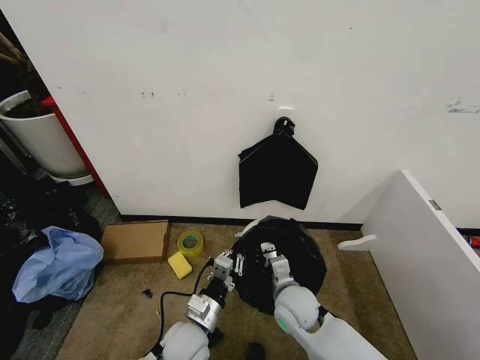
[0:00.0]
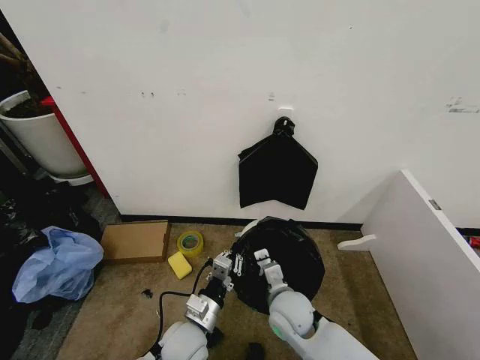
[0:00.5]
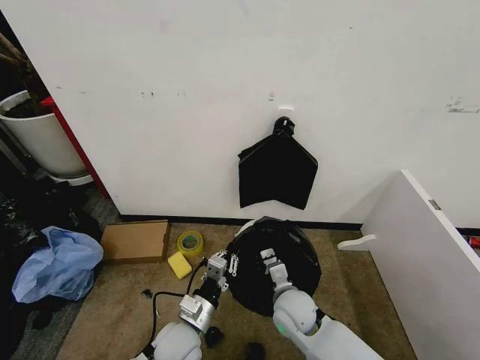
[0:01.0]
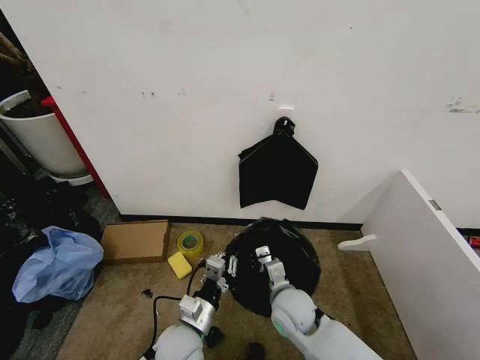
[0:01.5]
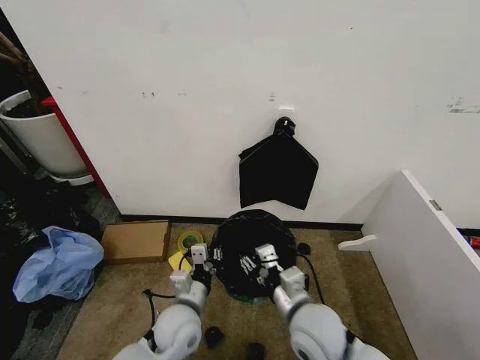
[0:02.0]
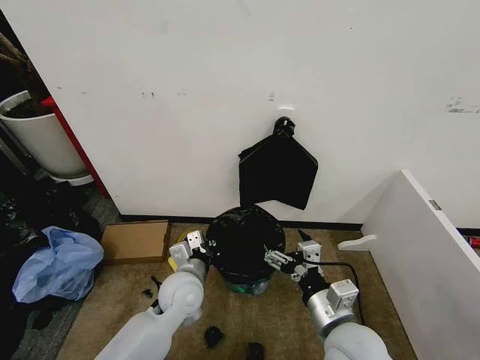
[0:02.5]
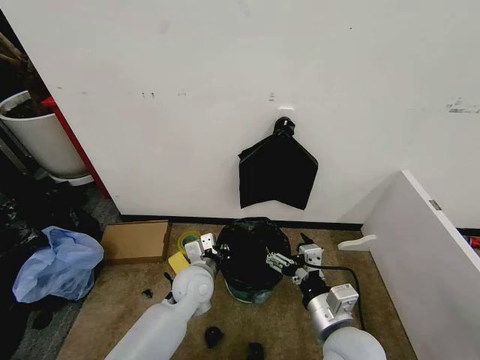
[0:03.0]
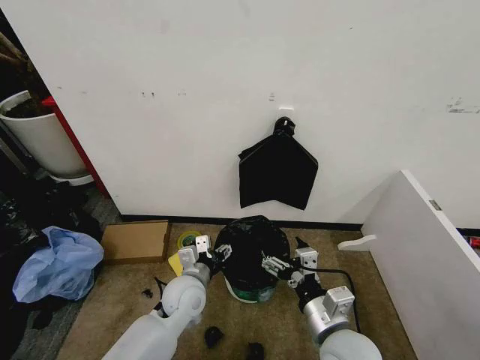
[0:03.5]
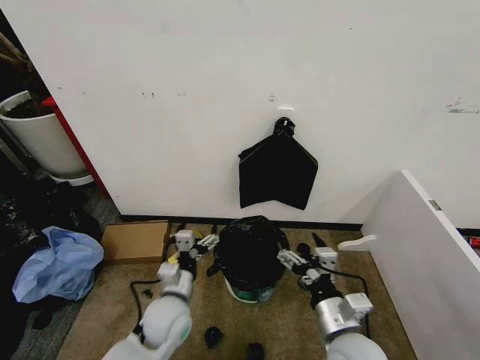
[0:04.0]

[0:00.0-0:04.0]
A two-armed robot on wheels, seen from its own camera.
Task of the whole recording: Place the garbage bag over the trash bin.
0:00.0 to 0:02.0: The right gripper travels upward and backward by about 10 cm, and opens up.
0:02.0 to 0:04.0: The left gripper moves about 10 cm forward and comes back, and opens up; the right gripper shifts roughly 10 cm to the right and backward, and opens.

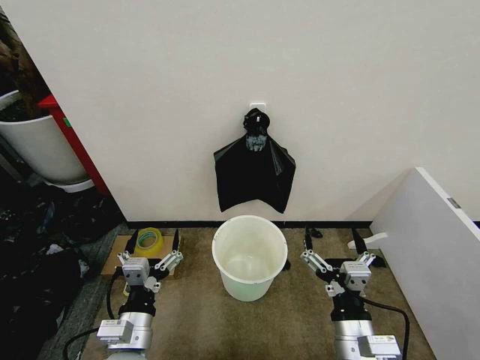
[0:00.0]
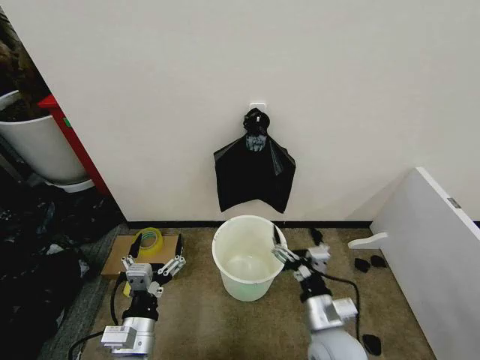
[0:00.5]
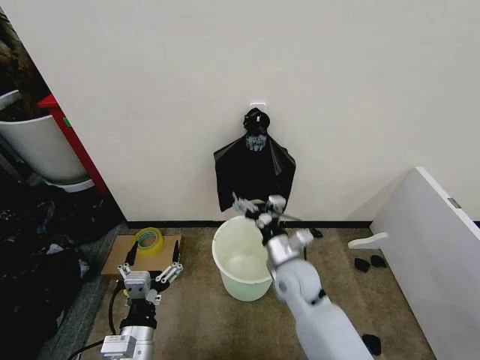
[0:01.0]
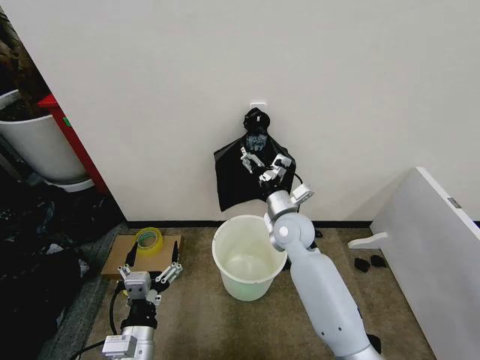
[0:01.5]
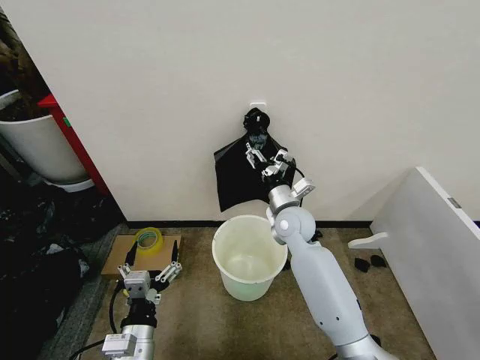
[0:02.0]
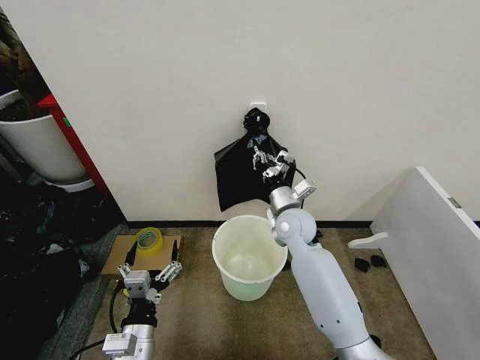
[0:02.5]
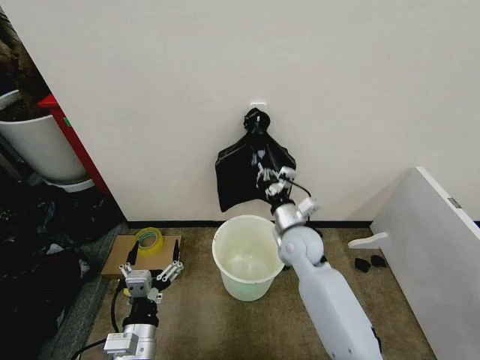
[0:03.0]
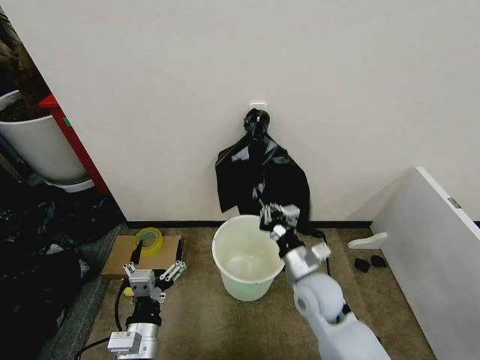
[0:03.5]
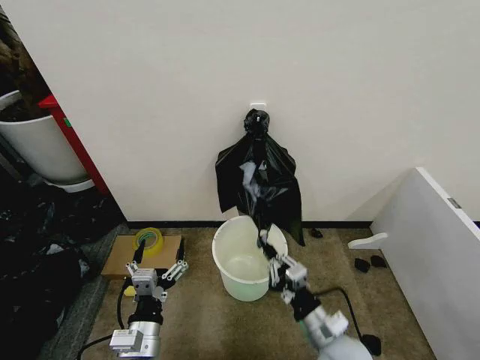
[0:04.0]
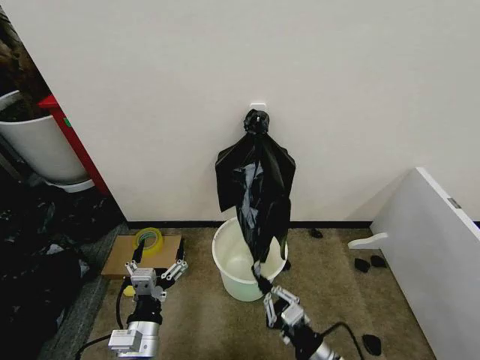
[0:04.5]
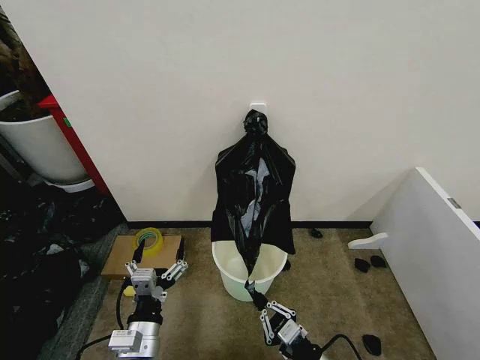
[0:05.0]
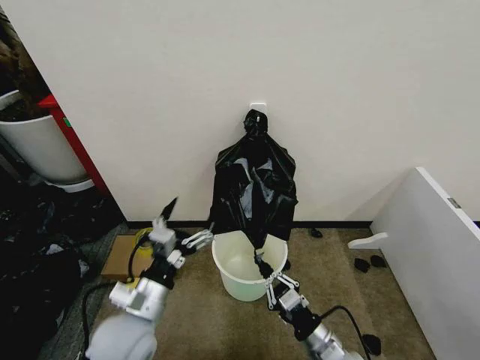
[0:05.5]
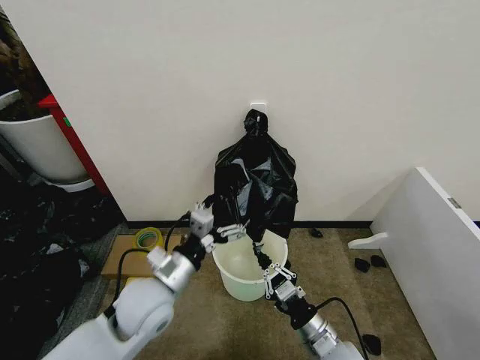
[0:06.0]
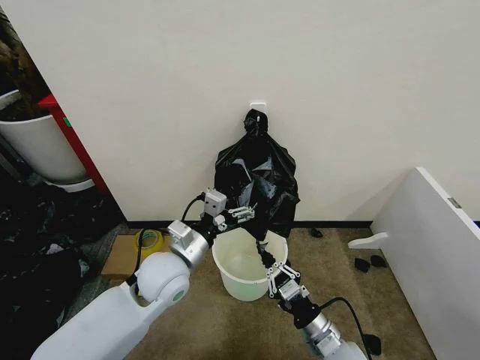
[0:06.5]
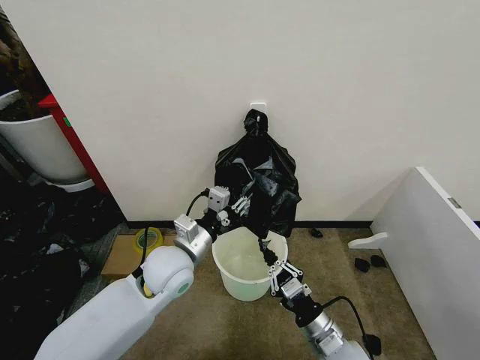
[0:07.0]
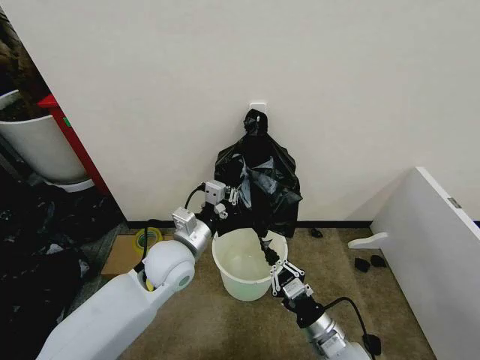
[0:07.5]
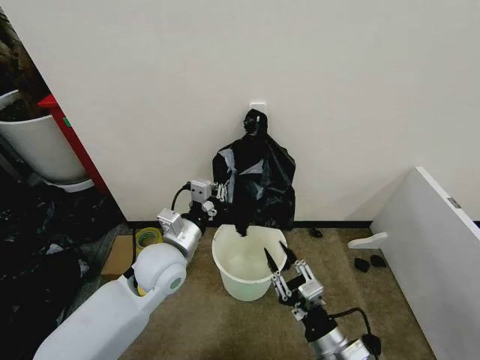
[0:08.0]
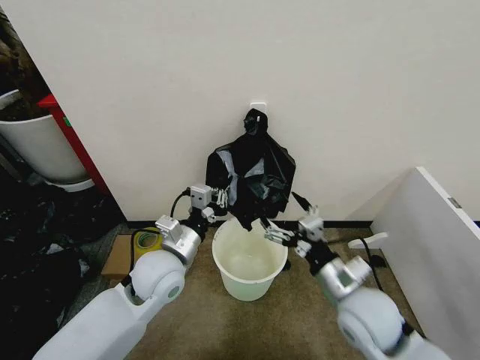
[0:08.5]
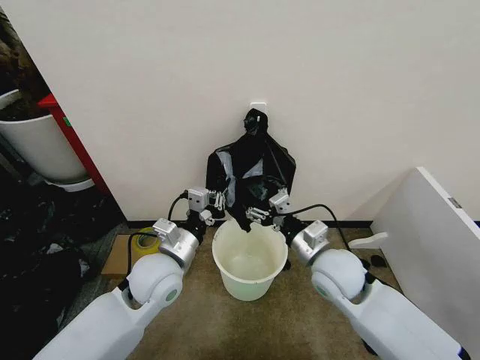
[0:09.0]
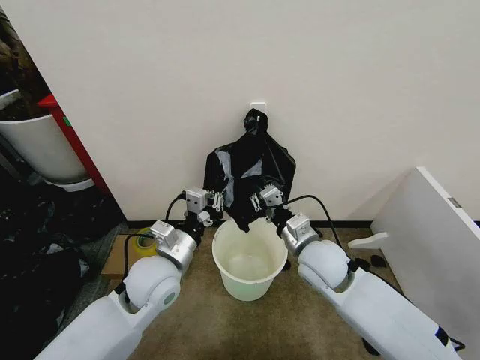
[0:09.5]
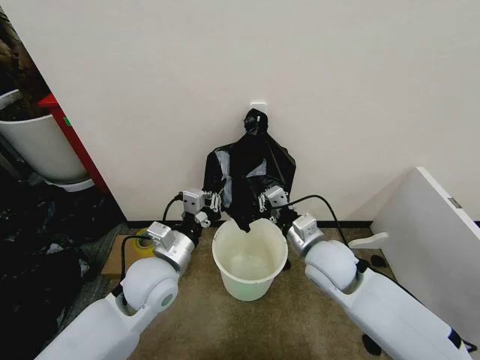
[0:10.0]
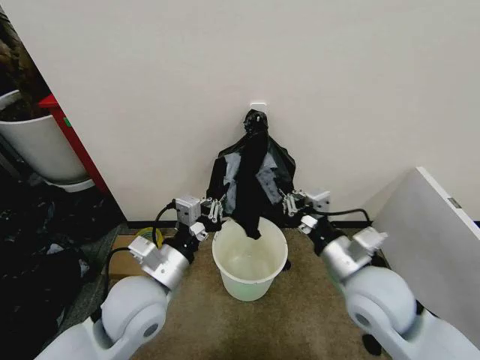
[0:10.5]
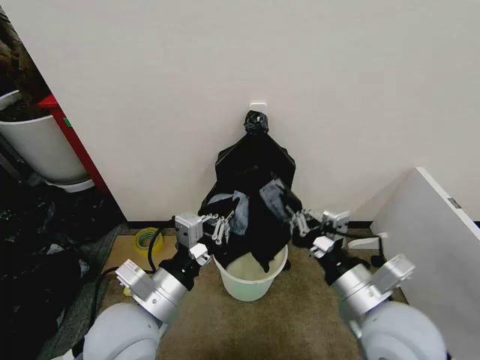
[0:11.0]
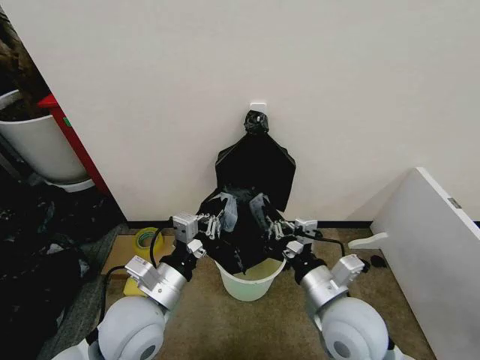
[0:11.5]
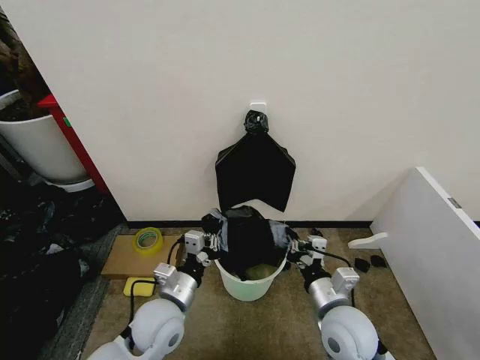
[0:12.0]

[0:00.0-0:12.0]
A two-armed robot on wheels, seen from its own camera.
Task of the whole recording: Place the garbage bag over the trash bin.
0:02.0 to 0:04.0: The right gripper heads backward, covering approximately 25 cm, and closes.
0:04.0 to 0:06.0: The left gripper shifts roughly 15 cm forward and upward.
0:06.0 to 0:08.0: The left gripper heads forward, covering roughly 5 cm, and closes up. Meanwhile the right gripper travels upward by roughly 5 cm, and opens its fingers.
0:08.0 to 0:10.0: The right gripper heads forward and upward, covering about 20 cm, and closes up.
0:10.0 to 0:12.0: The left gripper moves downward, roughly 10 cm, while the right gripper moves backward and downward, approximately 15 cm.

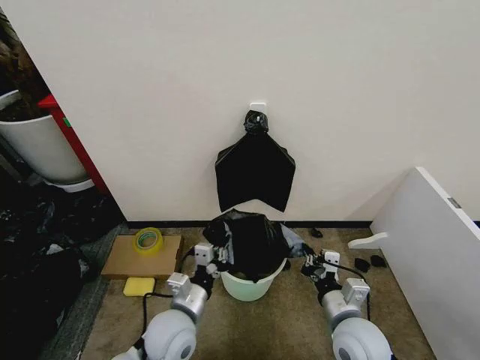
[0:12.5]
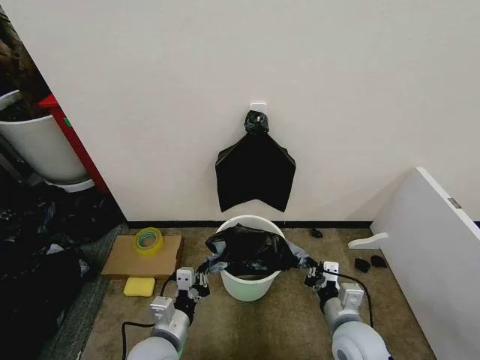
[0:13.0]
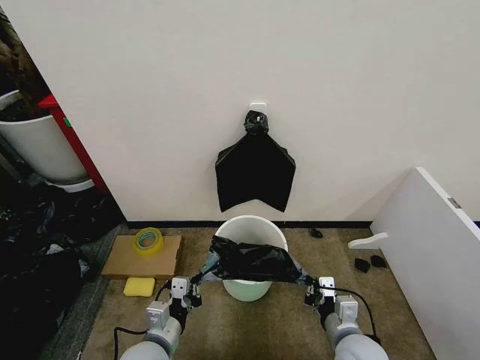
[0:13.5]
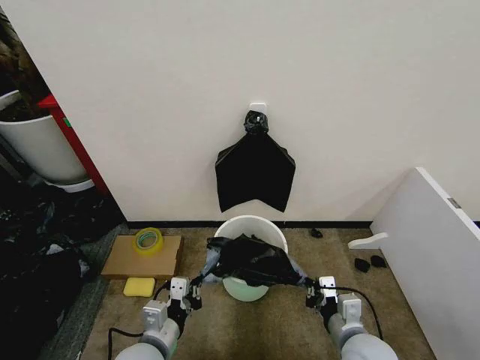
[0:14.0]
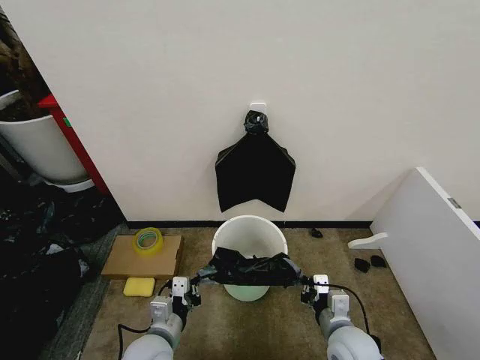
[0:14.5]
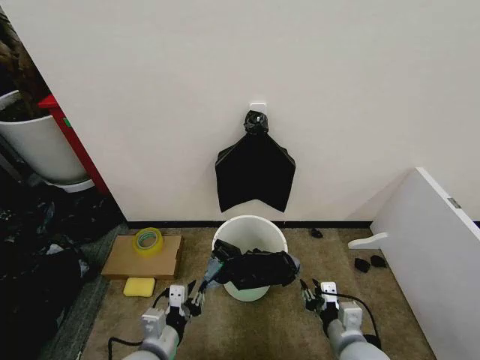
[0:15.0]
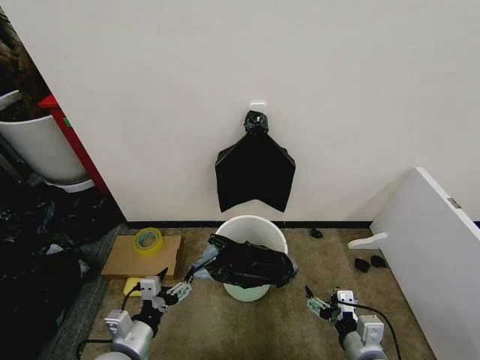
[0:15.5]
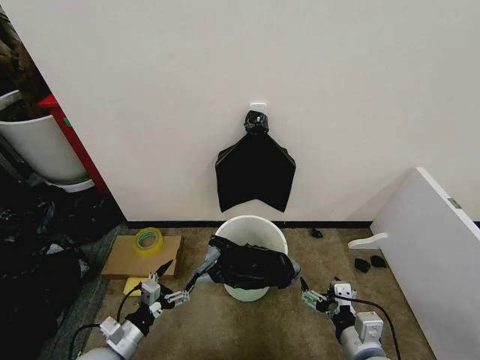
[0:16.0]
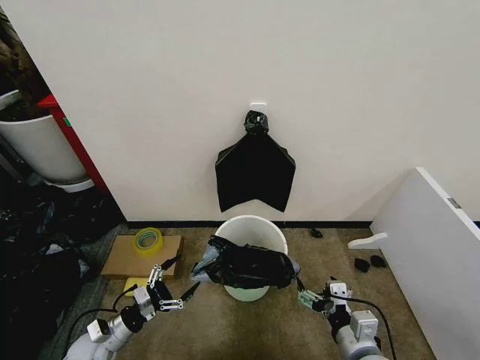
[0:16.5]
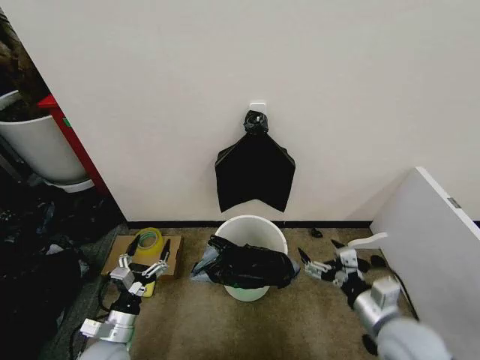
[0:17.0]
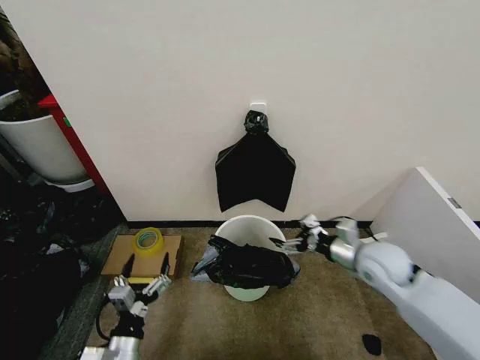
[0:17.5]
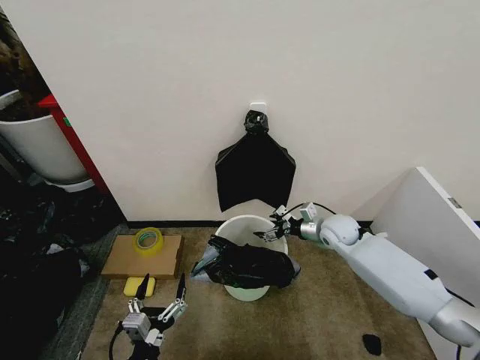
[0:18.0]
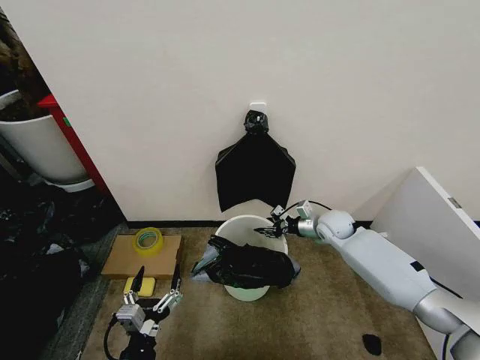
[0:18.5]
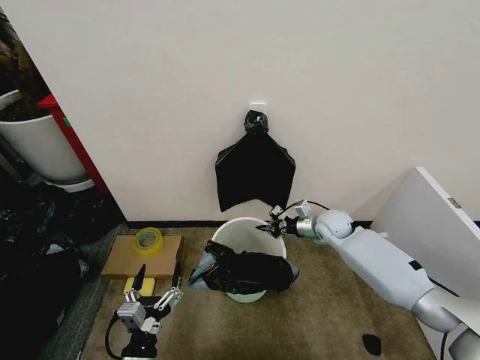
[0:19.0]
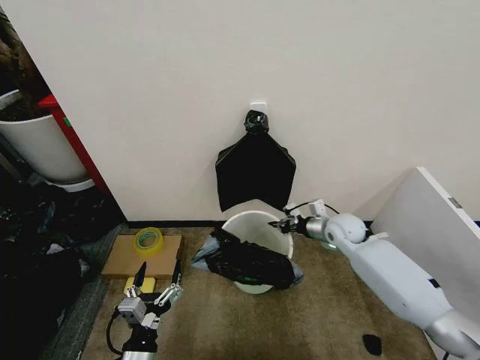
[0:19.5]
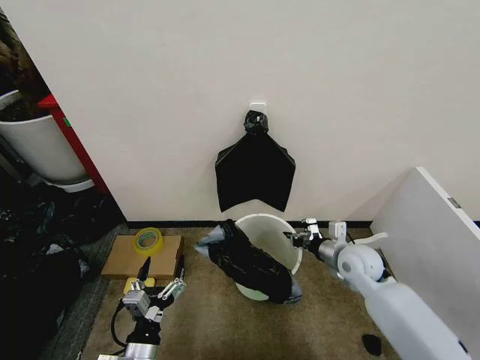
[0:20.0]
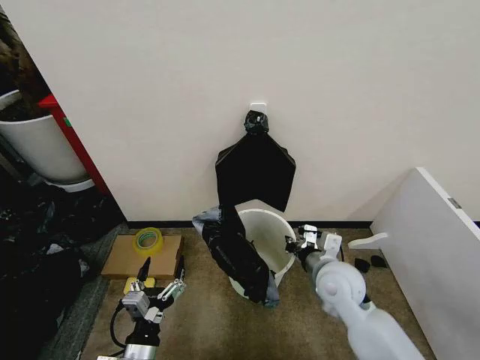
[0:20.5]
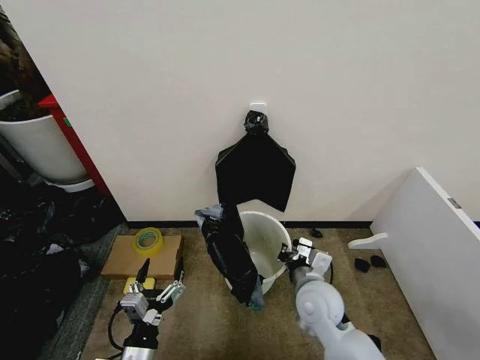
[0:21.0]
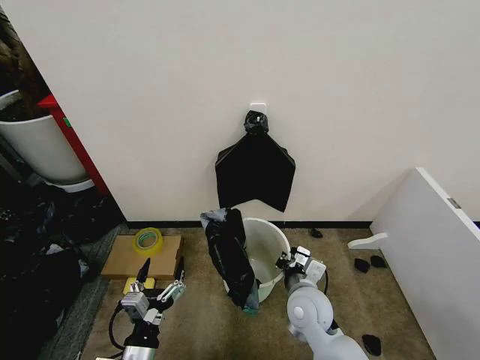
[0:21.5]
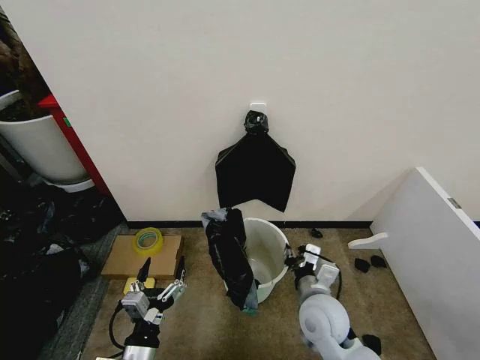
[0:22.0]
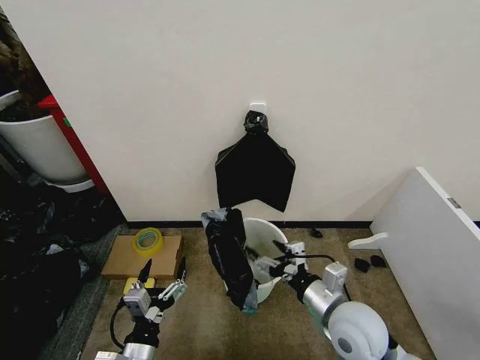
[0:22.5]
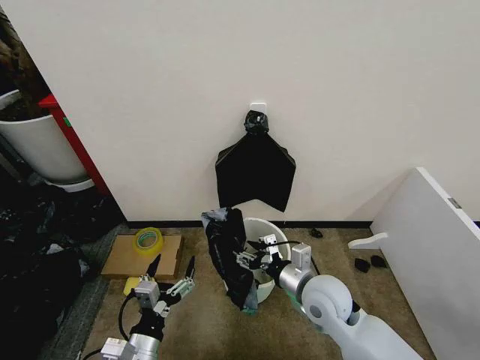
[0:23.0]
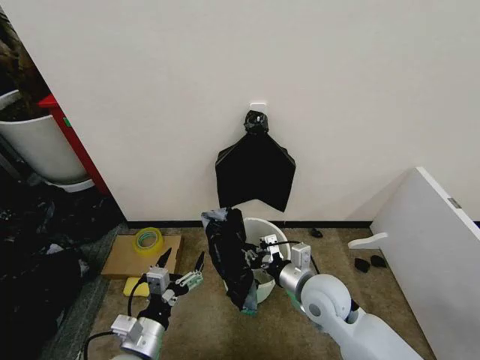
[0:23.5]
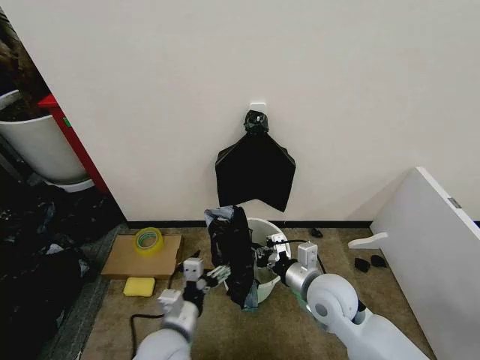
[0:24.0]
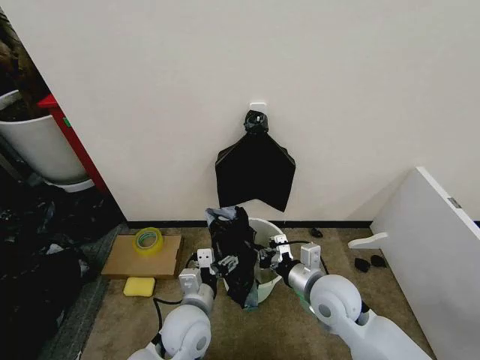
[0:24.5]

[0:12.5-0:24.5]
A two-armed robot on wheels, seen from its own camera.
Task of the whole recording: Place the garbage bag over the trash bin.
0:12.5 to 0:14.5: The right gripper moves downward, some 5 cm. The left gripper changes place by roughly 5 cm.
0:14.5 to 0:16.5: The left gripper shifts some 20 cm to the left and downward, and opens up. The right gripper goes some 5 cm backward, and opens its fingers.
0:16.5 to 0:18.5: The left gripper is displaced to the right, backward and upward by some 20 cm; the right gripper travels forward by about 35 cm, and closes.
0:18.5 to 0:20.5: The right gripper travels backward by some 20 cm, and closes.
0:20.5 to 0:22.5: The right gripper travels backward by some 10 cm, and opens up.
0:22.5 to 0:24.5: The left gripper shifts about 15 cm forward and to the right; the right gripper travels forward by about 5 cm, and closes up.
